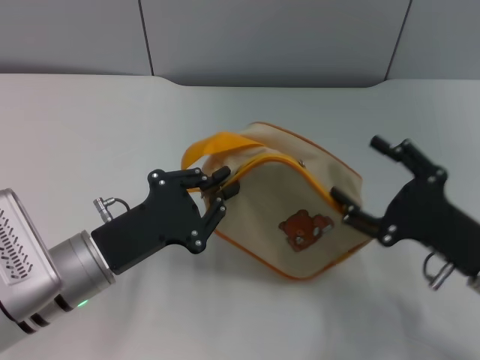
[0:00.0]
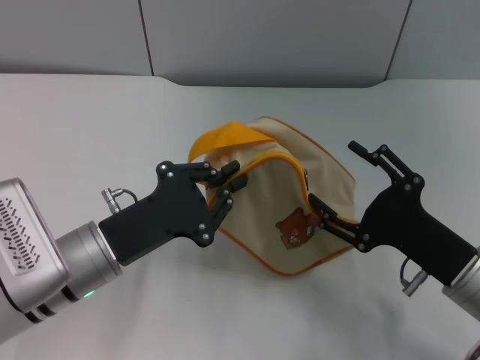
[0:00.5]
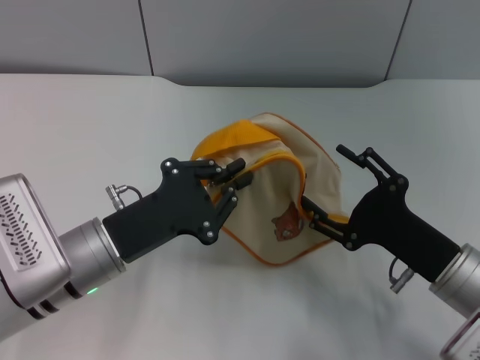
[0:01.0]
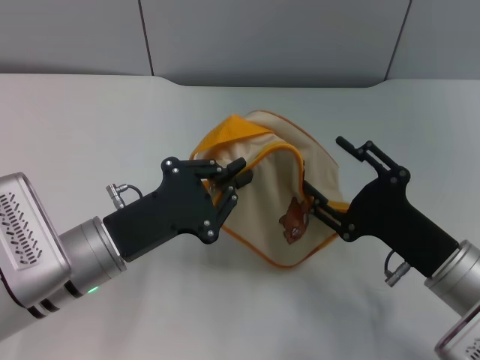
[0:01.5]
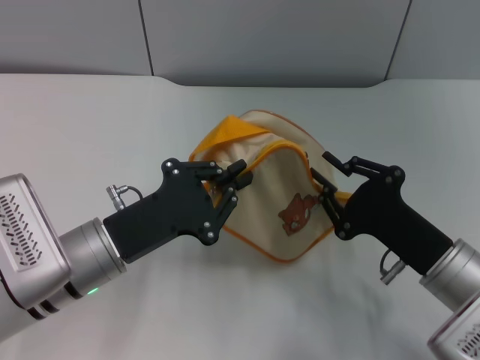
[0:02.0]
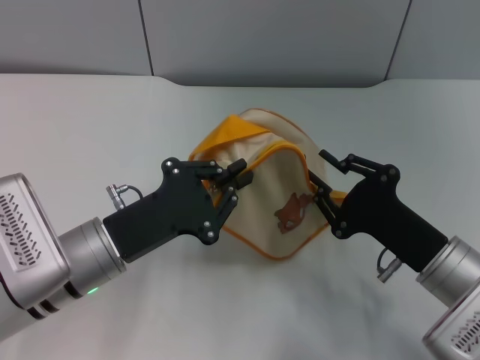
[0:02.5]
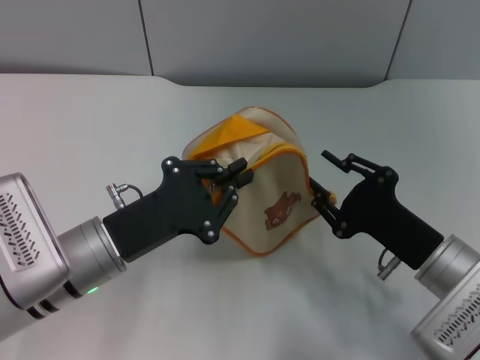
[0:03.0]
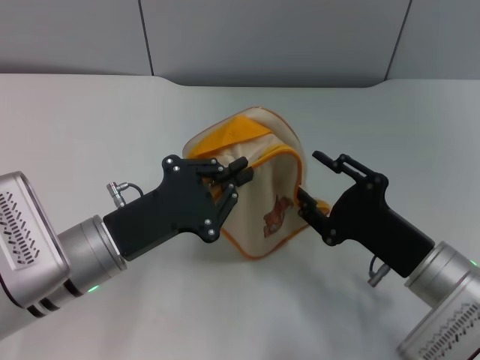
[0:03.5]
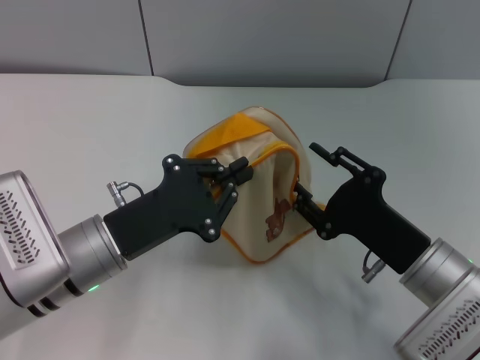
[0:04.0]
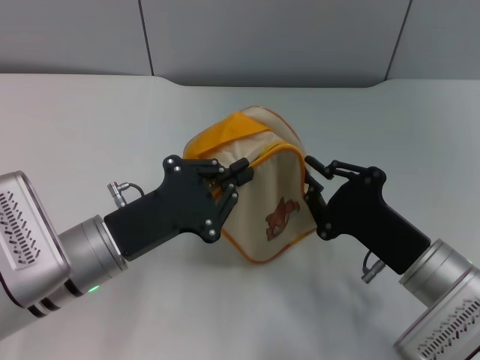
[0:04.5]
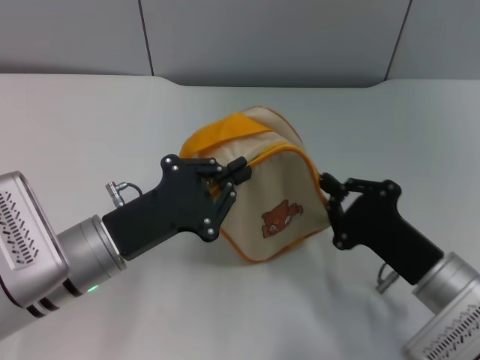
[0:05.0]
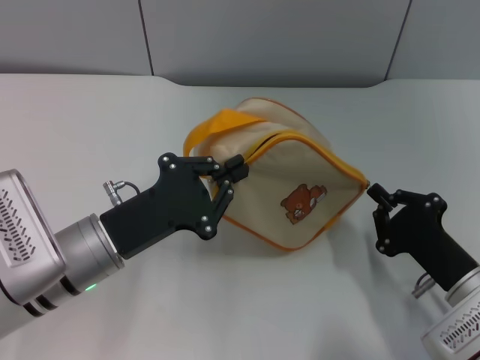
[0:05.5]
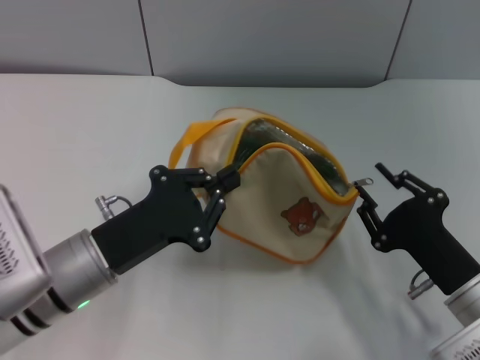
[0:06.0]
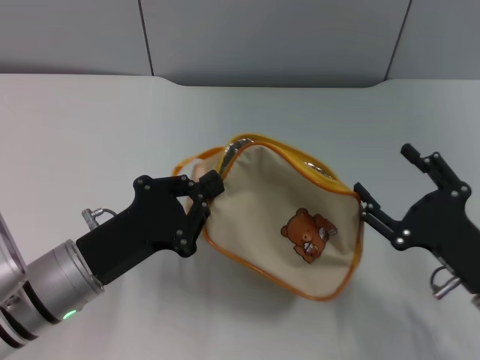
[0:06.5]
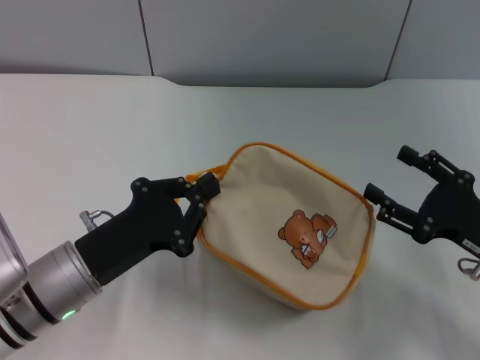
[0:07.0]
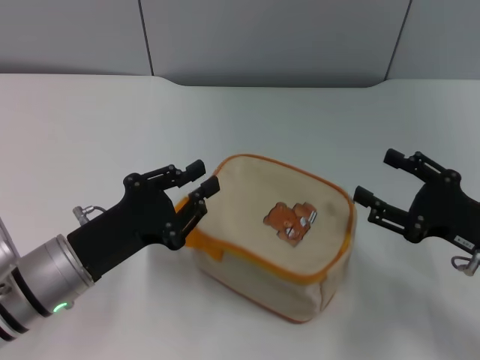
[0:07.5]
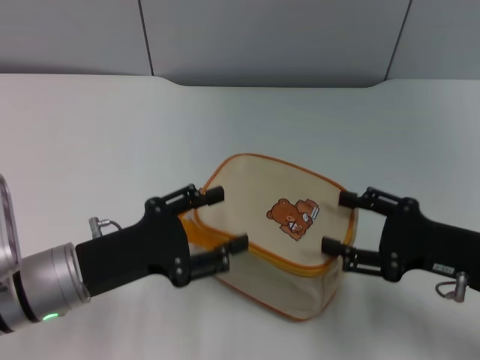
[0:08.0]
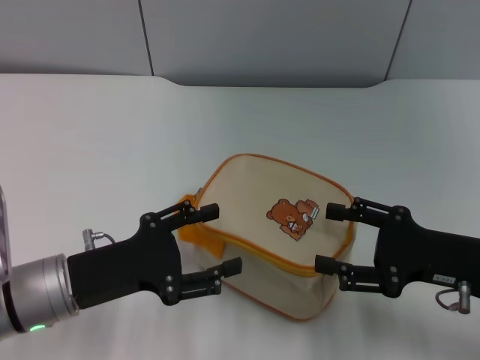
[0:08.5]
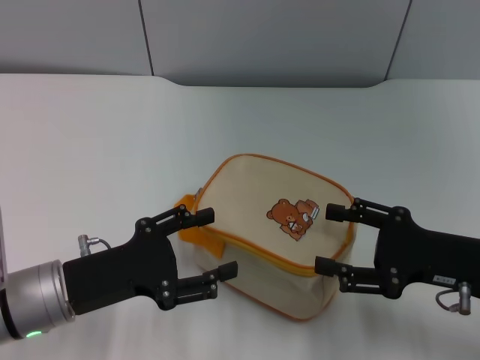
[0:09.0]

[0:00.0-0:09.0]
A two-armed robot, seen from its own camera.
Step, 0:00.0 to 0:06.0: Unzip the zipper of bag with right gripper.
Step, 0:06.5 to 0:07.5: Place the bag on the table with left gripper.
0:00.0 to 0:02.0: The right gripper closes its fingers.
0:02.0 to 0:04.5: The grippers make only small movements.
0:04.5 to 0:07.0: The right gripper goes roughly 10 cm to the right, and opens up.
0:07.0 to 0:09.0: The left gripper opens up.
